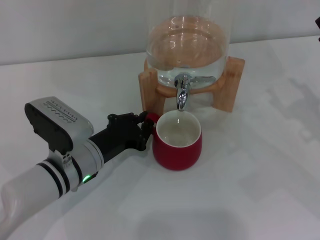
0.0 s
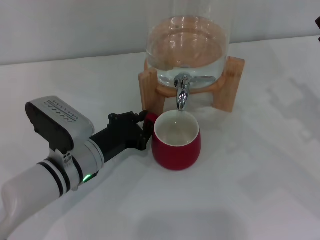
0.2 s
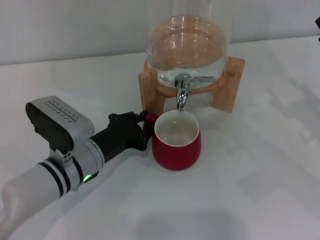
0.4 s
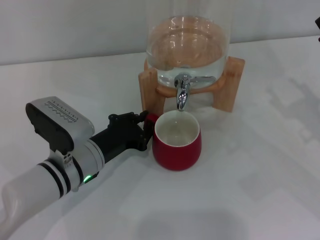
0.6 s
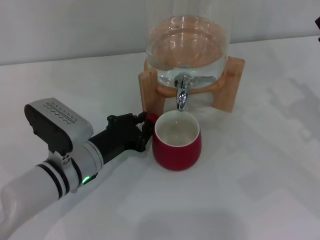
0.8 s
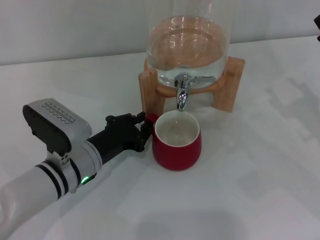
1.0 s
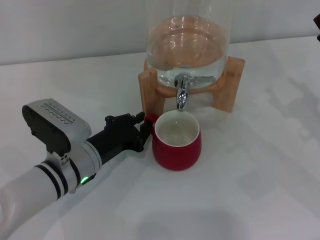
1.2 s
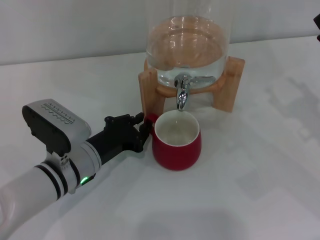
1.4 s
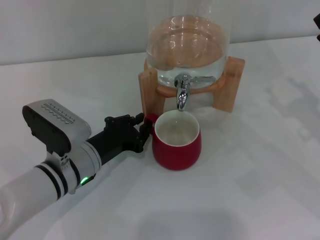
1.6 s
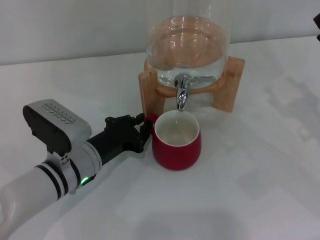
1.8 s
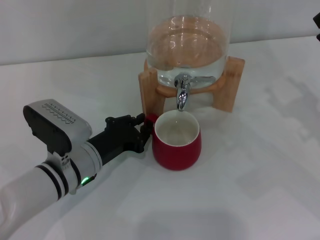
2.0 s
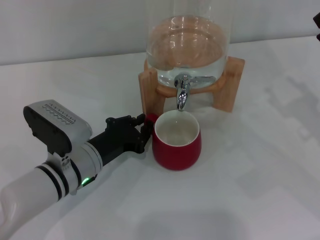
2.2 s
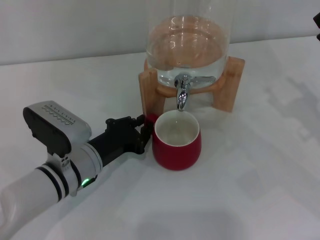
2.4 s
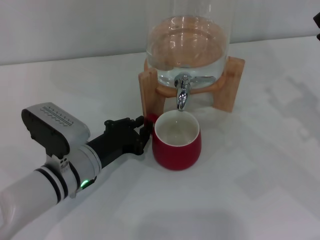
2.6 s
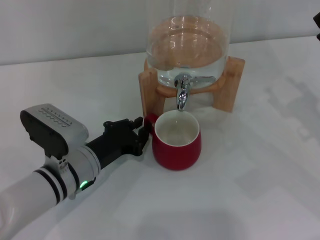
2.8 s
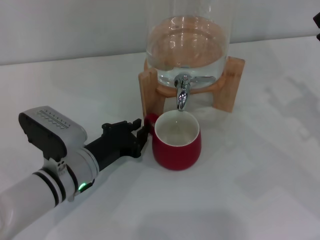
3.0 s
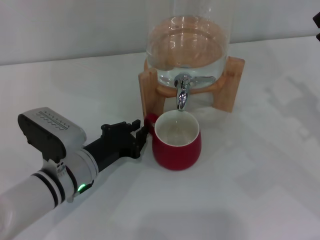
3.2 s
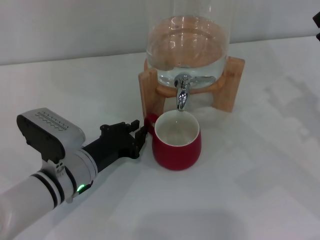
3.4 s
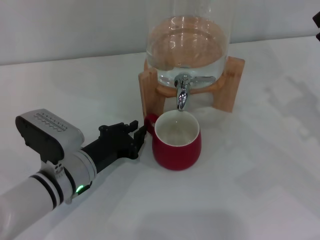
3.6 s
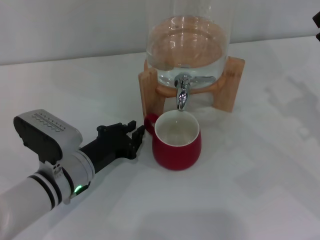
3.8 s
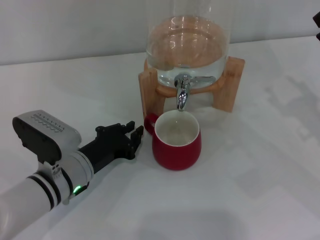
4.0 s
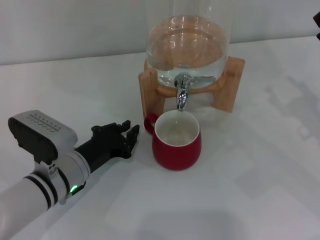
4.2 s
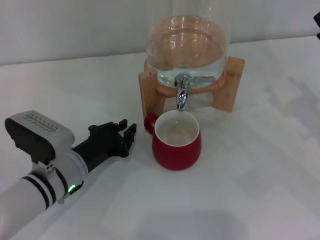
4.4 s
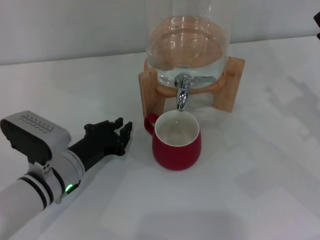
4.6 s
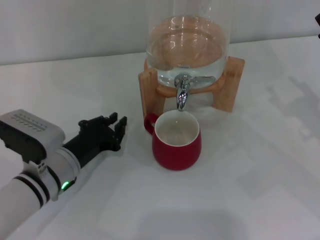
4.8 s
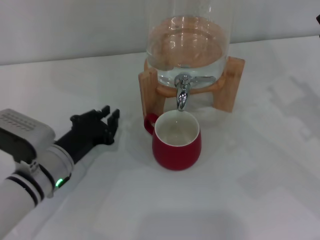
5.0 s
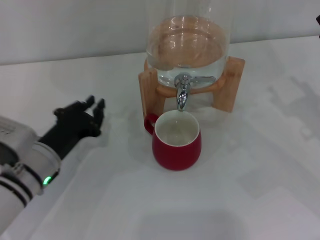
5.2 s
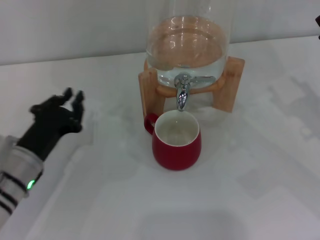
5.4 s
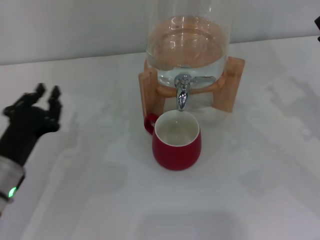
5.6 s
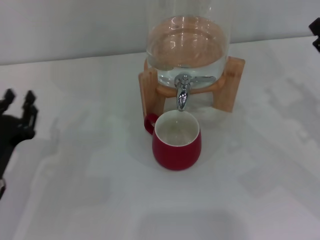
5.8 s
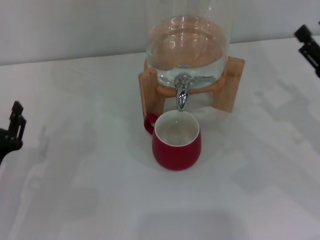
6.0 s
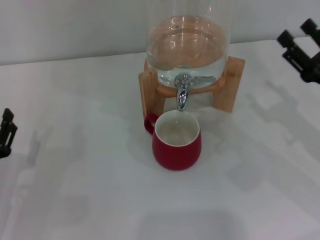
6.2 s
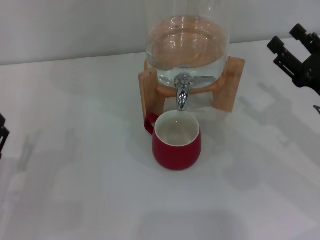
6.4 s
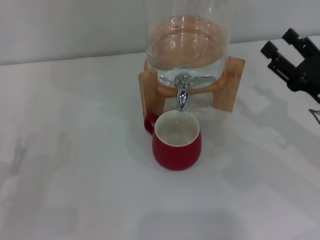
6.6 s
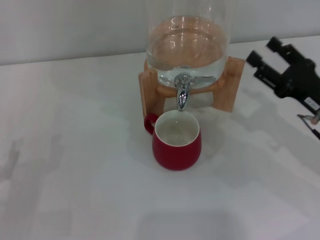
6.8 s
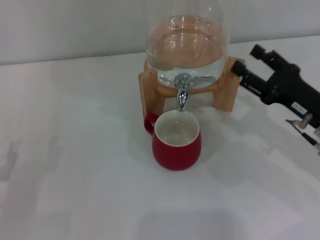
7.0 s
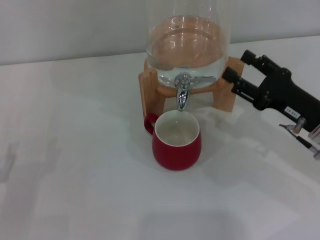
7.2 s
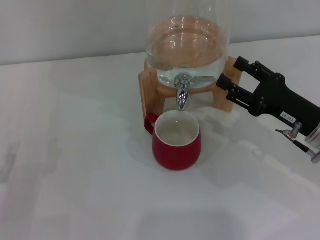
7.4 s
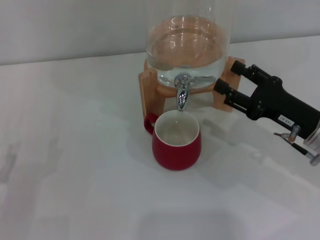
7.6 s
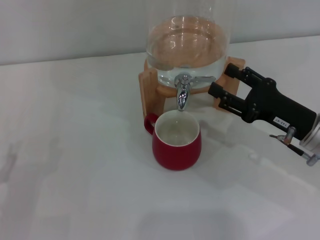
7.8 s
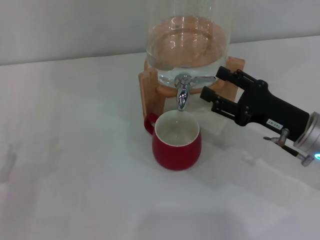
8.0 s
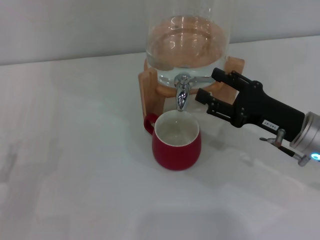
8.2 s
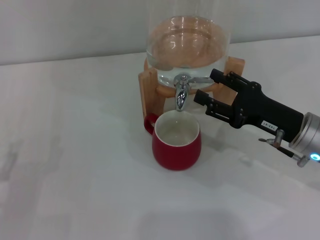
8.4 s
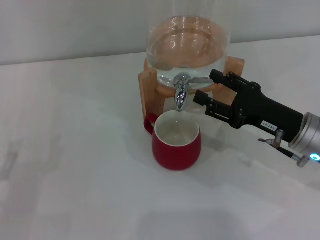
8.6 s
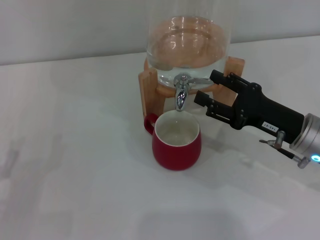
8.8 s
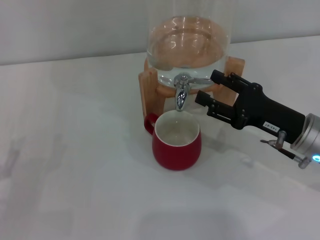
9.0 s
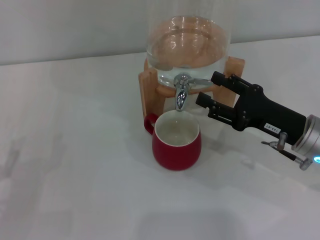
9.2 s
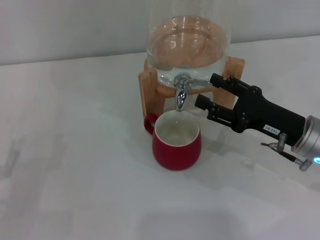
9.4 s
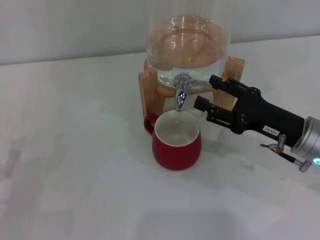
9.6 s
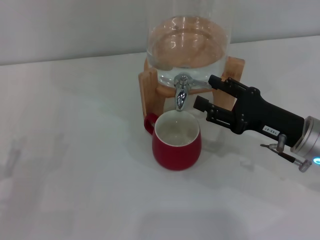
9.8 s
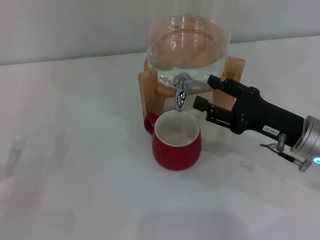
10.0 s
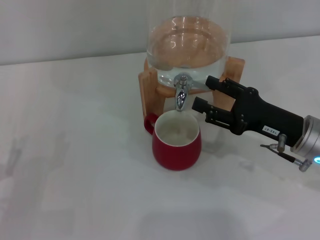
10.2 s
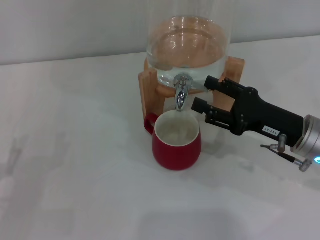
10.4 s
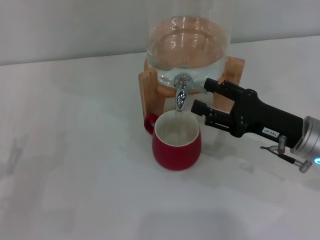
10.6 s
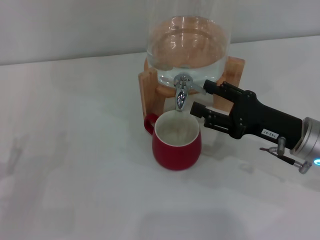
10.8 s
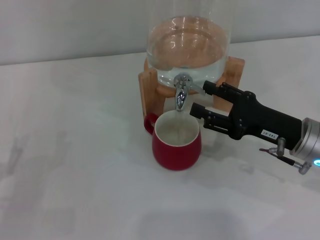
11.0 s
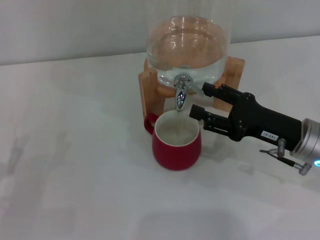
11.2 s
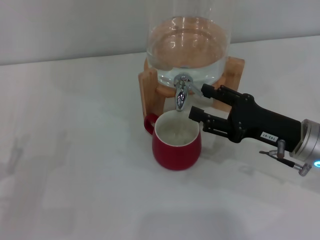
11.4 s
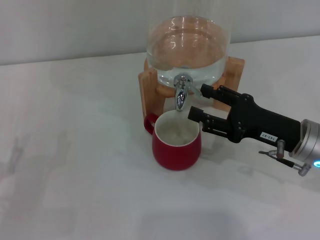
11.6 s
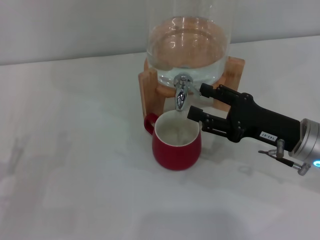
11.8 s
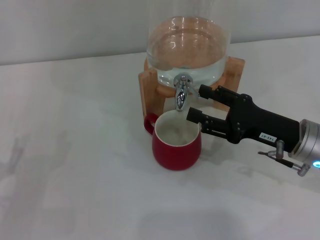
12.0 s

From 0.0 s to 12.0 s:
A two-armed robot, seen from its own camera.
Task of the whole recording: the left gripper pick up the red cup and place it horizontally under the faucet, the right gripper turn on the faucet to fill the cup, and then turn off the faucet.
Step, from 0.0 s to 4.4 s: Move the cup beneath the water dispenser nozzle with the left gripper.
From 0.0 s to 3.0 s: The two grippers keep their place.
From 3.0 s to 4.4 s: The grippers make only small movements.
From 4.4 s to 6.0 s: The left gripper heads to the left and backward, covering roughly 10 cm.
From 6.0 s to 7.6 s: The left gripper moves about 5 cm, and opens its fingers; the right gripper travels to the left by about 5 cm.
From 7.6 s to 9.0 s: The grippers move only a little.
From 9.0 s to 10.4 s: Both grippers stay put.
From 10.4 s to 12.0 s: Both grippers stay about where they are.

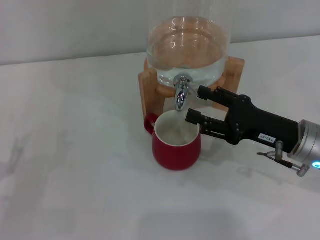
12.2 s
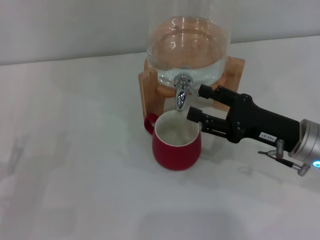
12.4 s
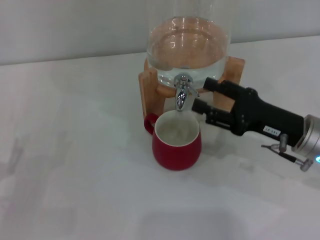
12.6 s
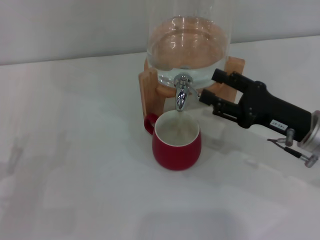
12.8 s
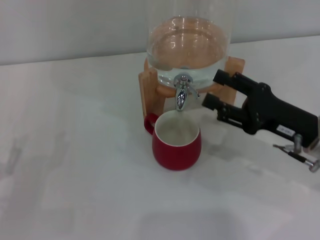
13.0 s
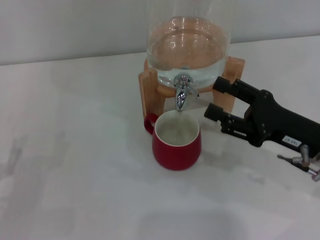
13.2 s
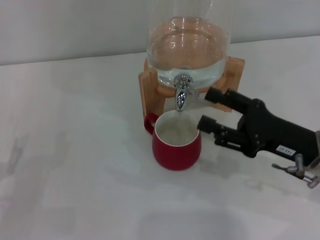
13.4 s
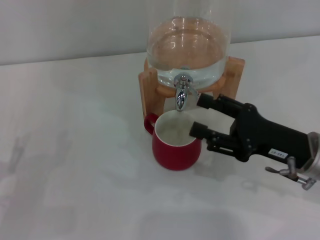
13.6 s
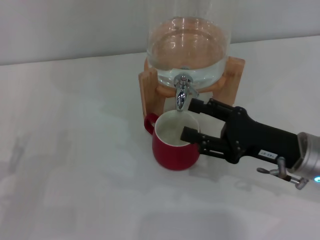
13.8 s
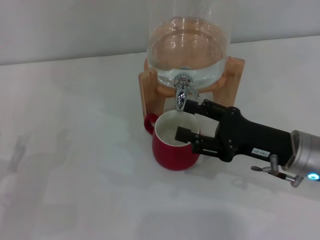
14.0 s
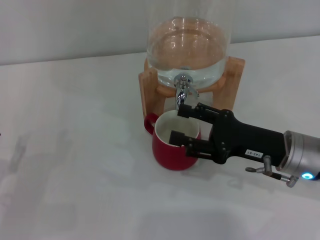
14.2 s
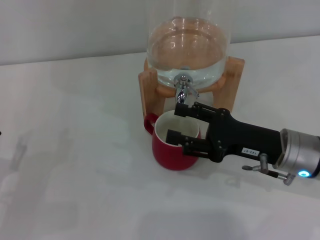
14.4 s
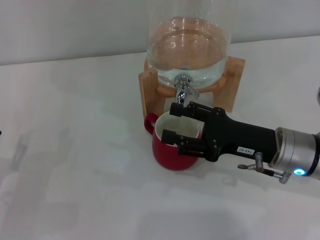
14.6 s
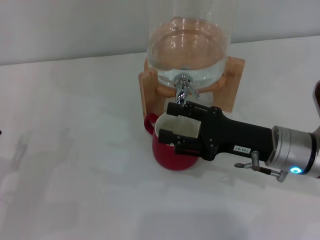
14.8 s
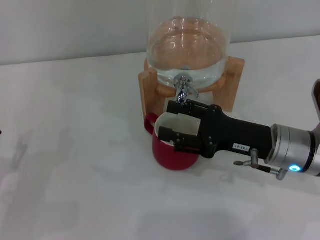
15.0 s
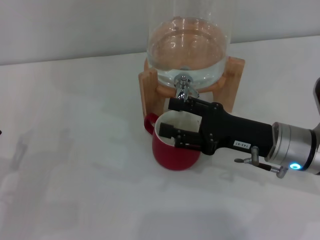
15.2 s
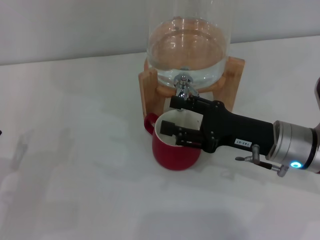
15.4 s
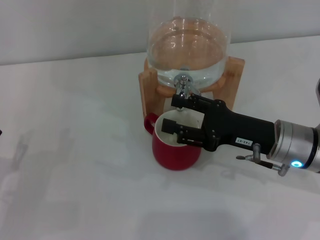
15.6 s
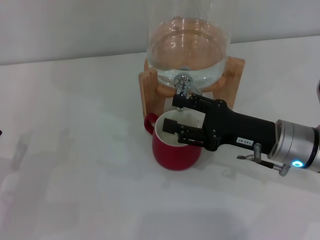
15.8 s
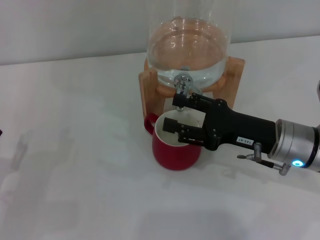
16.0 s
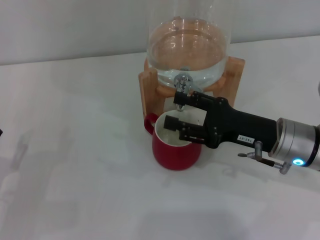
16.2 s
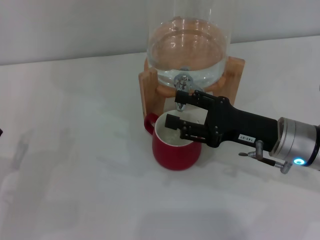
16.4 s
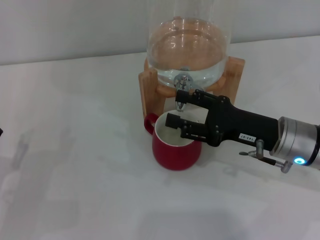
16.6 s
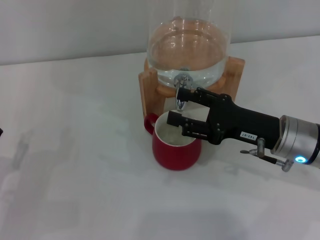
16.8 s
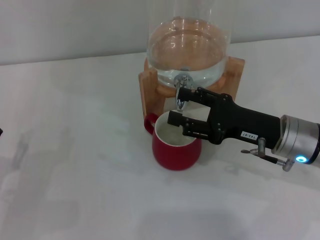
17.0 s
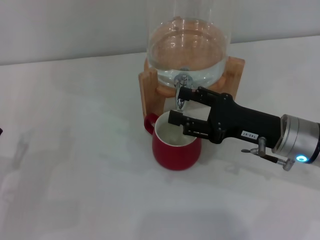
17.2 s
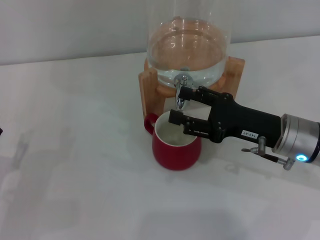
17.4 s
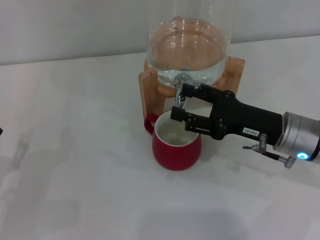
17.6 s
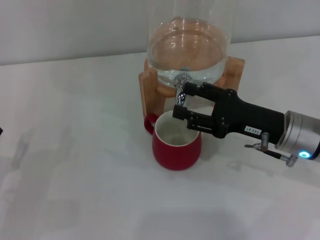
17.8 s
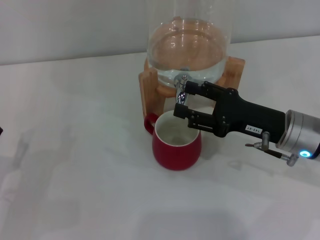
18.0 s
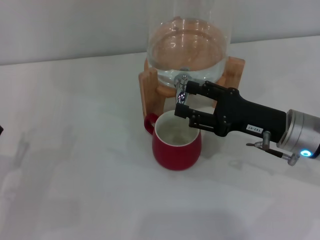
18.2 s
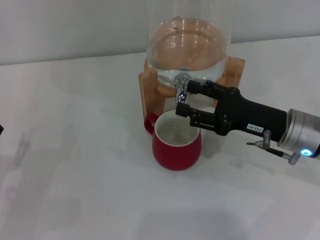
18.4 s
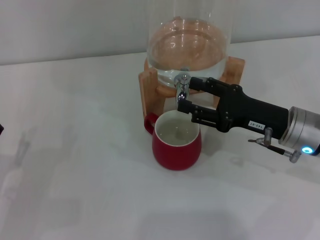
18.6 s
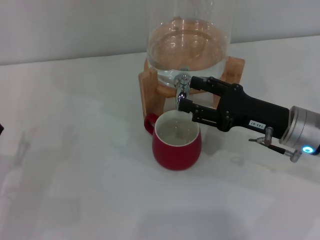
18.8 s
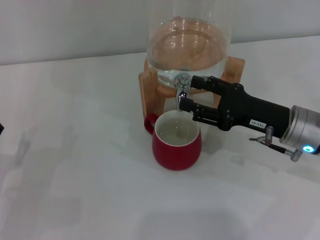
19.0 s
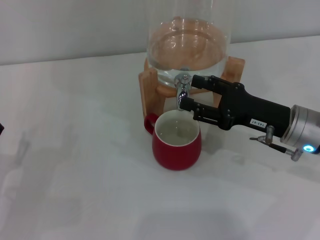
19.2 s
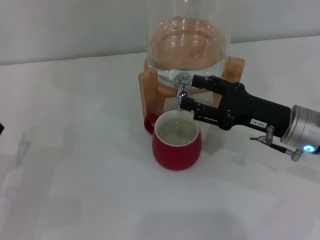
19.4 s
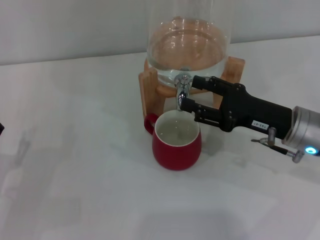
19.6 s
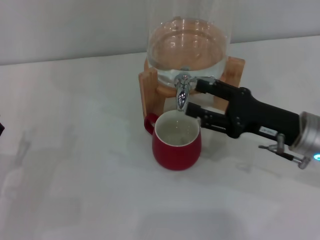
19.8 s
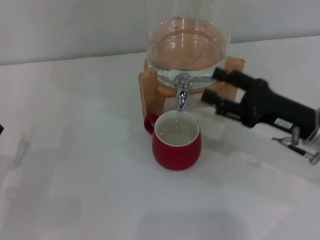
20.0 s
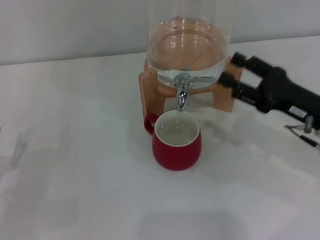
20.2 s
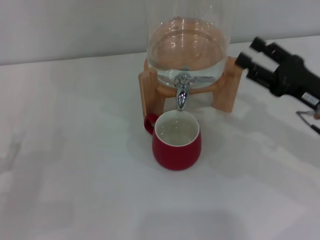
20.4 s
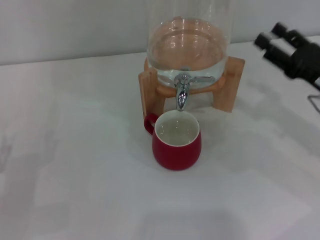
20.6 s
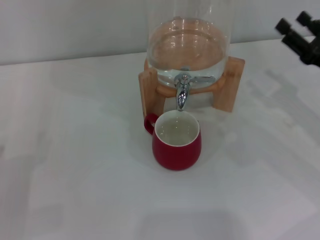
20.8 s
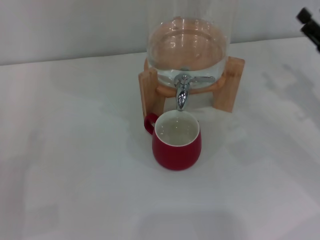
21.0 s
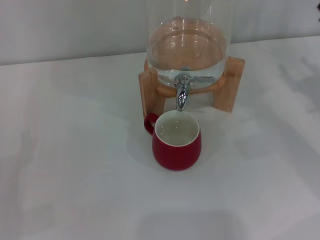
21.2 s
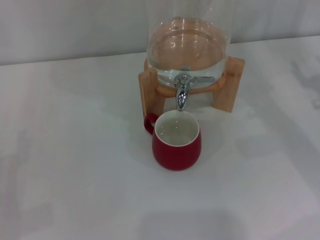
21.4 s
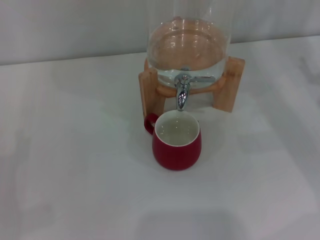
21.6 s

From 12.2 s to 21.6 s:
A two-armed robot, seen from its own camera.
Task of the whole recording: the left gripper pick up the red cup and place it horizontally under the faucet, the right gripper turn on the faucet to fill the cup, and then turn off the faucet.
Step, from 12.4 s to 20.0 s: Close the dispenser valve with the right gripper.
From 12.2 s to 15.4 s: The grippers move only a little.
From 15.4 s to 17.0 s: Neither gripper changes place.
From 17.0 s to 18.4 s: The two grippers keep their place.
From 18.4 s to 20.0 s: The grippers move only a little.
From 20.0 s to 21.6 s: The right gripper shifts approximately 10 cm to the right.
